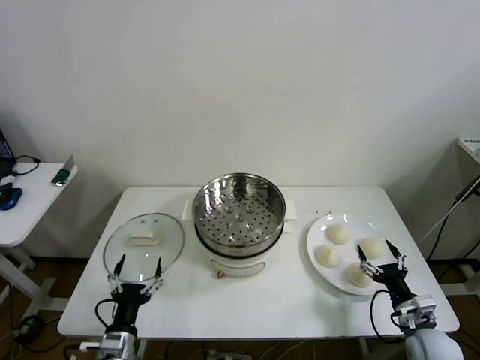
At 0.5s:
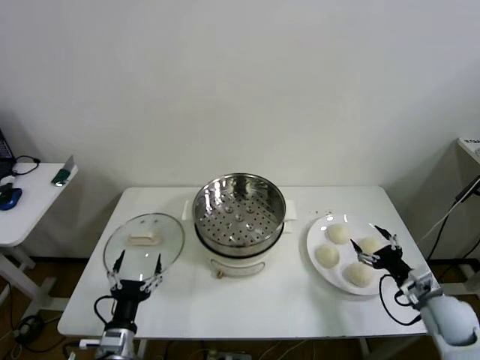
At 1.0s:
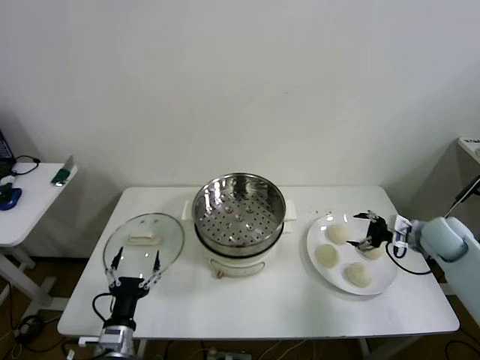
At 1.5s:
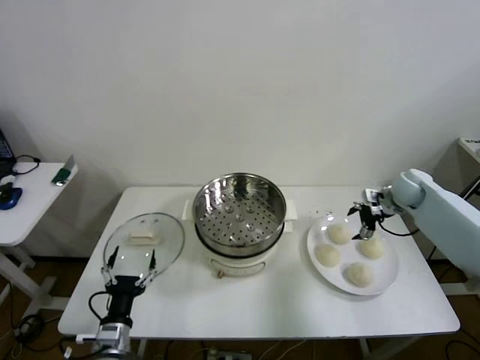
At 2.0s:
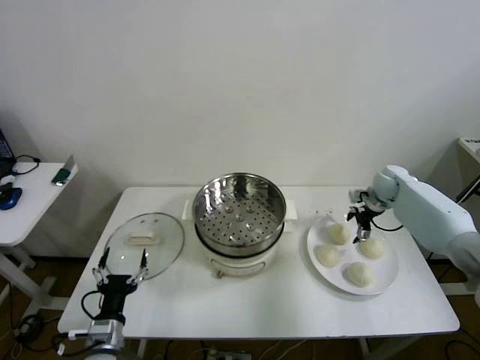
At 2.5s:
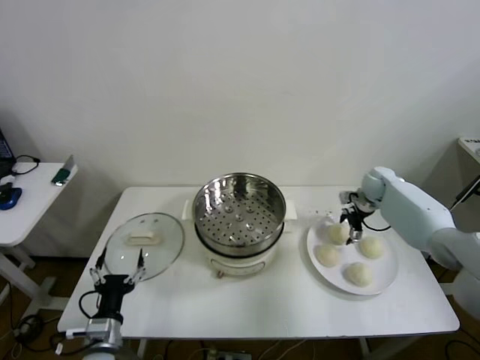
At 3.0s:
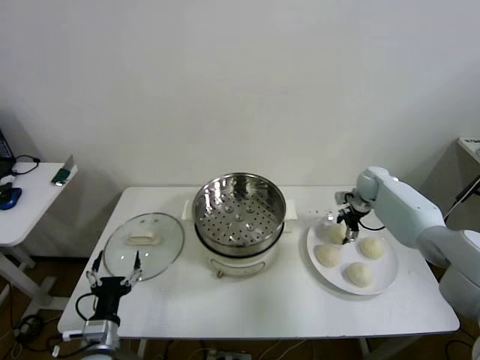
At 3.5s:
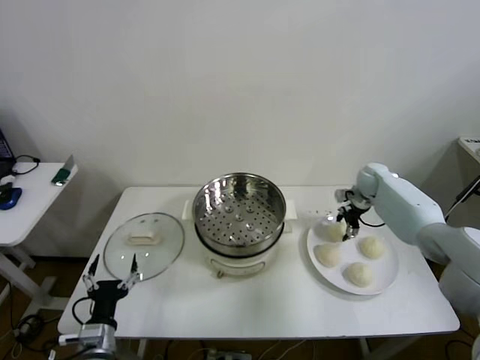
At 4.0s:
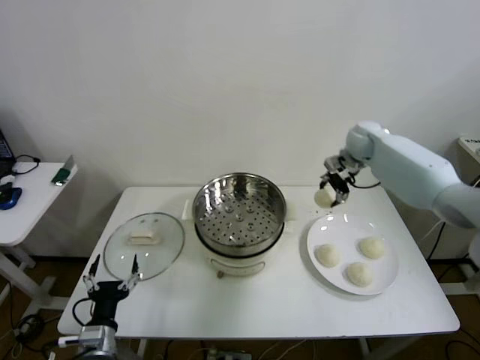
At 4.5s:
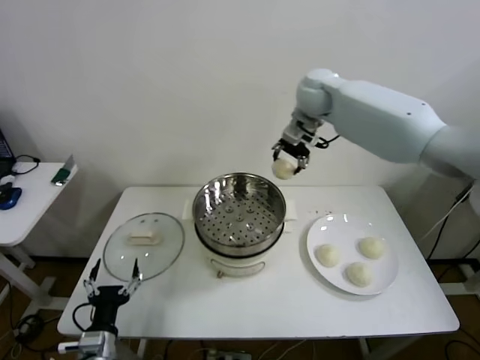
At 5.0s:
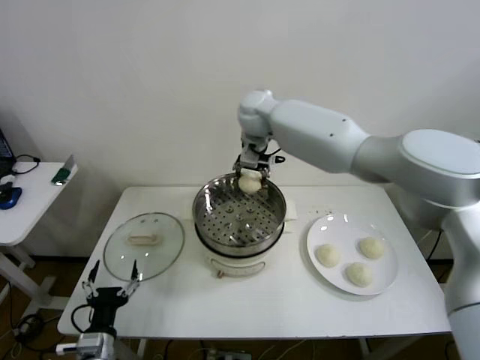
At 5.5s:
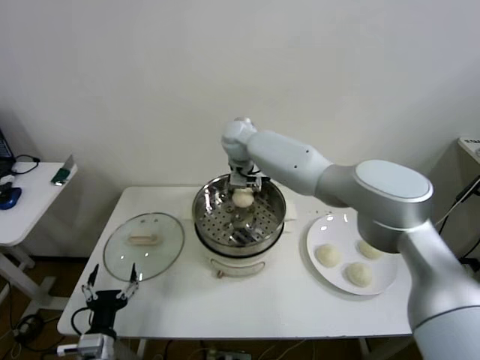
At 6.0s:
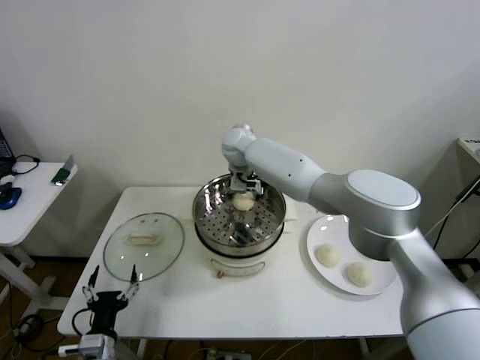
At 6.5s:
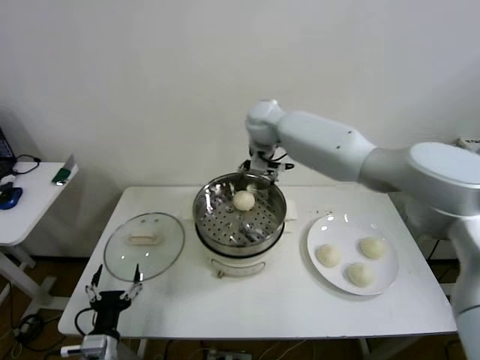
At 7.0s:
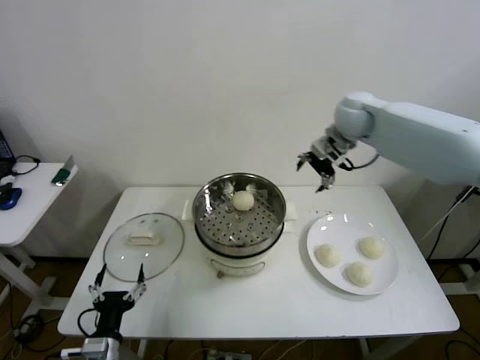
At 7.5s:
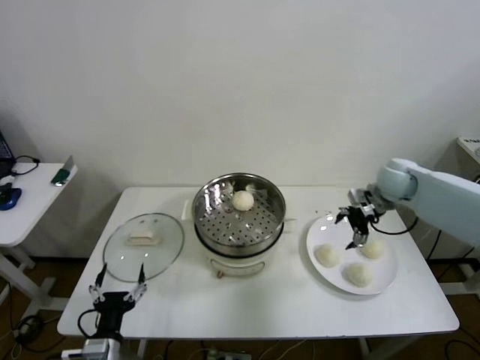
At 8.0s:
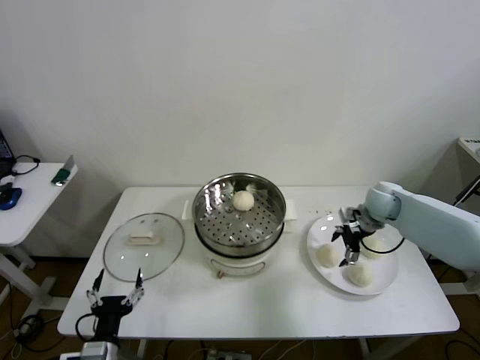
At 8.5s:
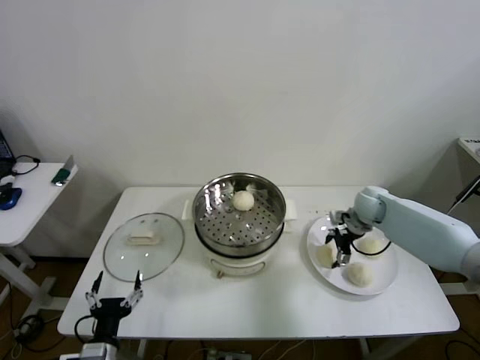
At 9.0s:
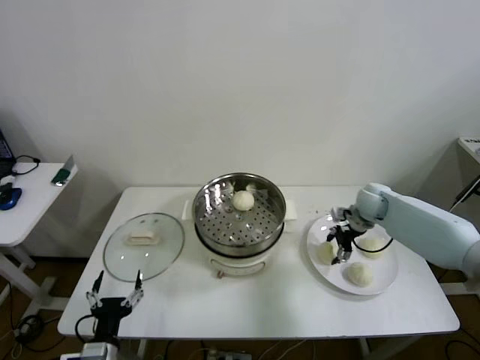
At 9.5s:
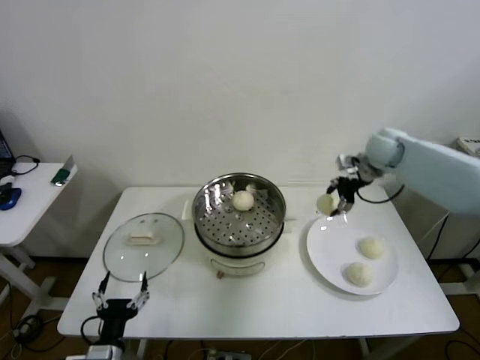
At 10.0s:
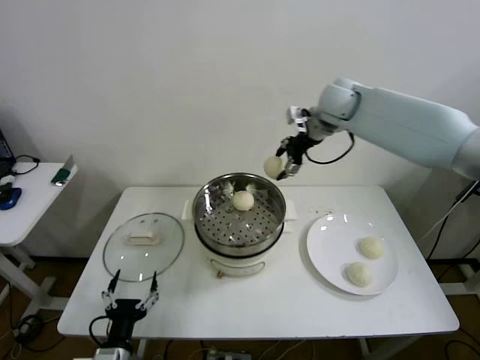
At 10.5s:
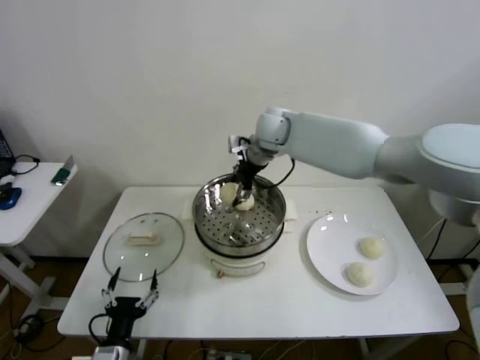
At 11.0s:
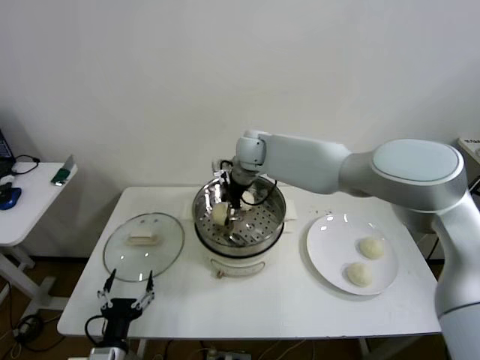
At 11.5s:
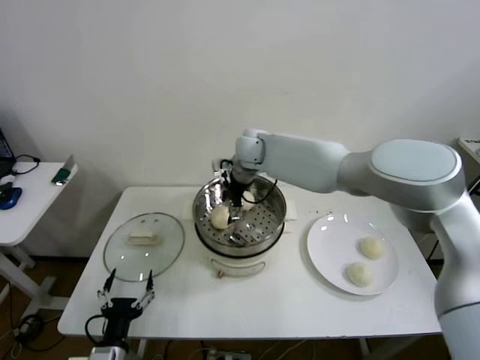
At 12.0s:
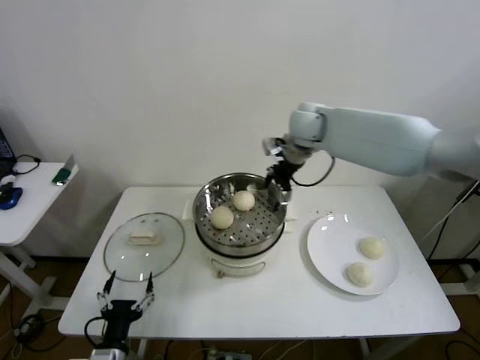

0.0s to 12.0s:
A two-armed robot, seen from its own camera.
Step, 0.0s to 3.0s: Grasp the baozi in the plate with right gripper.
Step, 3.5s to 6.0s: Place the baozi on the steamer with right gripper.
Step, 6.5s to 8.5s: Grasp the baozi in the plate with right gripper.
Step, 9.0s to 11.5s: Place the baozi on the steamer with right gripper.
2.0s to 4.0s: The right gripper shifts roughly 20 cm upward and to the left, and closes its fingers.
4.0s to 6.0s: The right gripper shifts approximately 30 cm to the left, and opens up.
6.0s to 8.0s: The right gripper goes some 35 cm to the right.
8.0s to 10.0s: The right gripper is displaced upward and to the left by approximately 30 cm, and closes up.
10.0s to 12.0s: The right gripper moves roughly 15 cm to the left and comes back, and opens up.

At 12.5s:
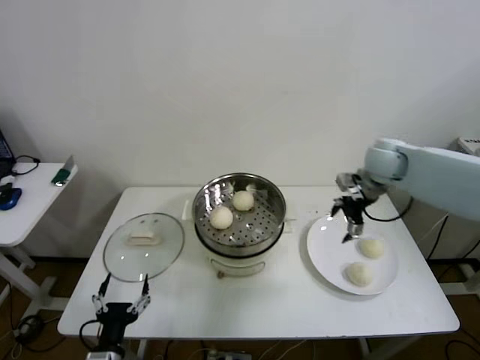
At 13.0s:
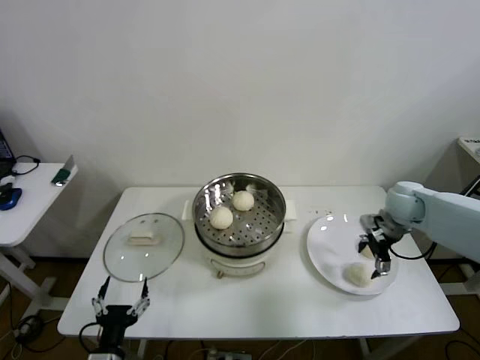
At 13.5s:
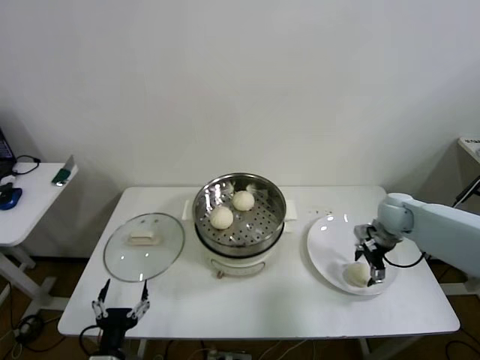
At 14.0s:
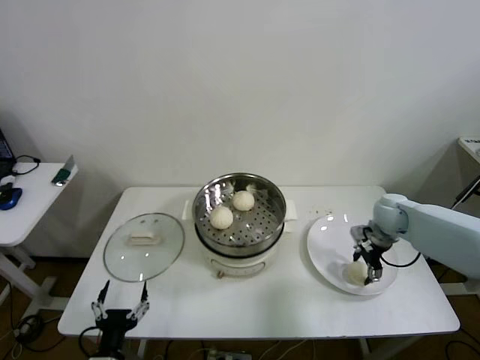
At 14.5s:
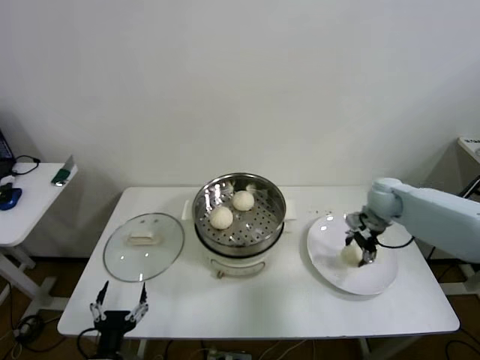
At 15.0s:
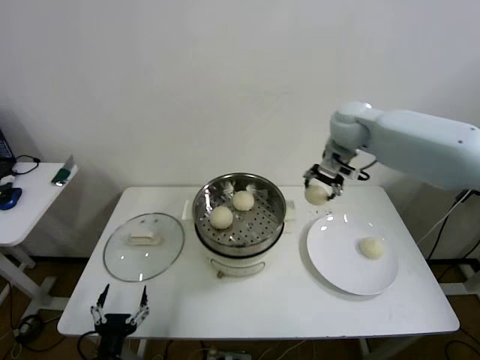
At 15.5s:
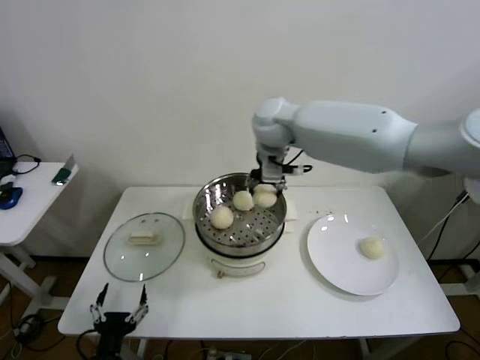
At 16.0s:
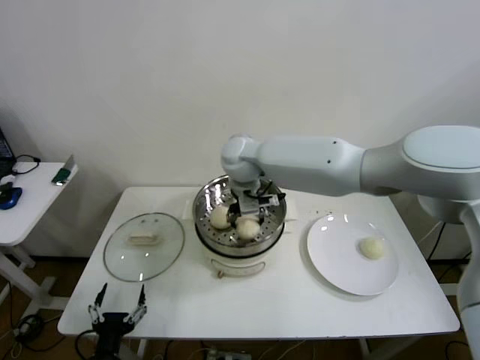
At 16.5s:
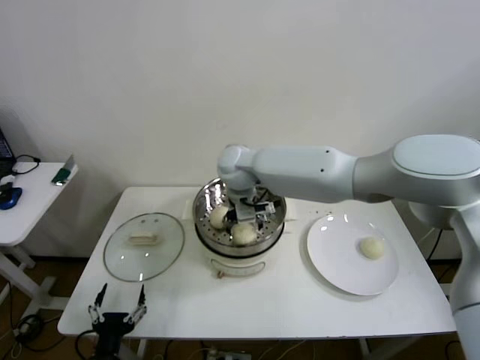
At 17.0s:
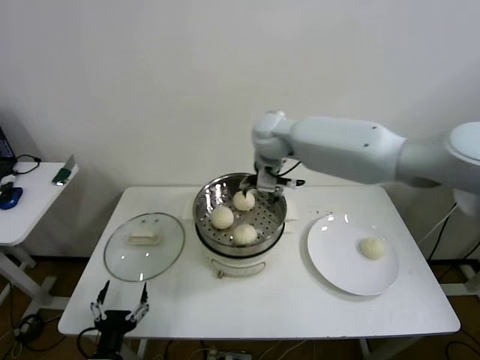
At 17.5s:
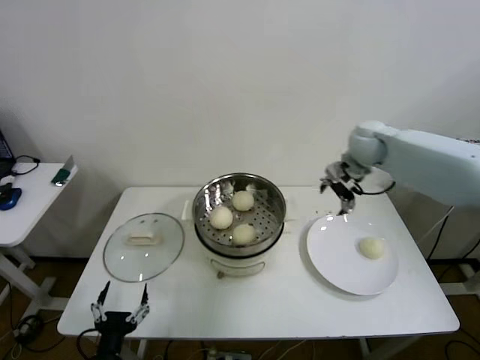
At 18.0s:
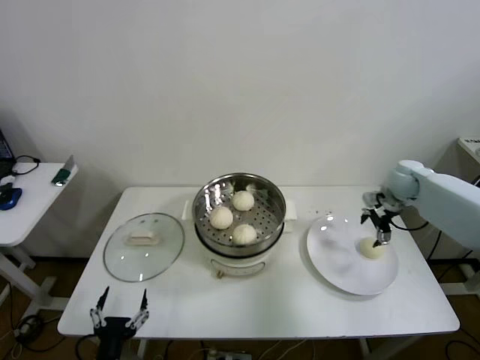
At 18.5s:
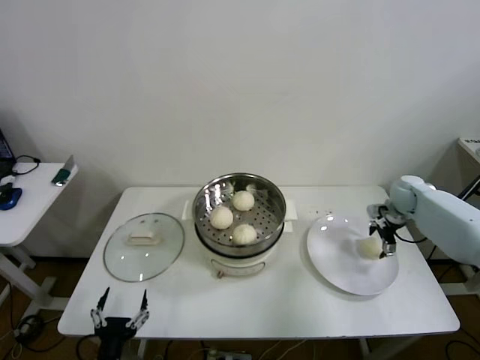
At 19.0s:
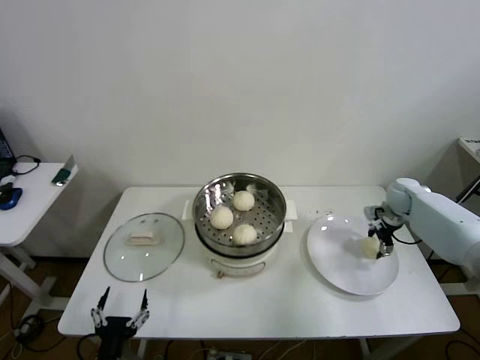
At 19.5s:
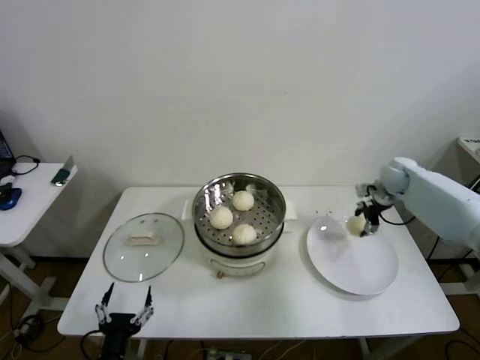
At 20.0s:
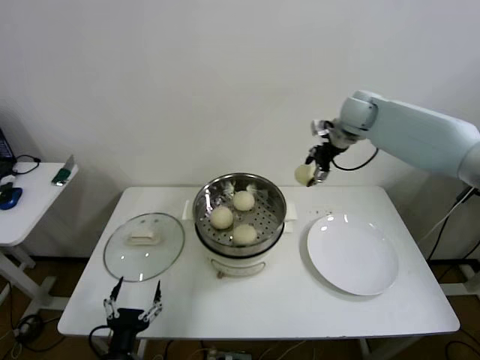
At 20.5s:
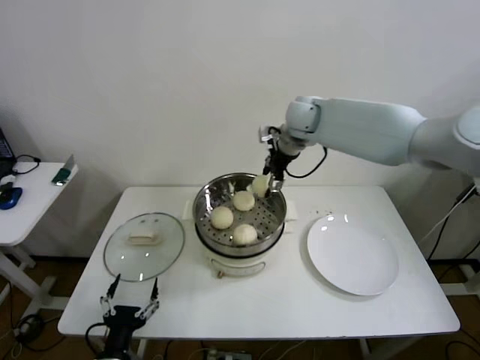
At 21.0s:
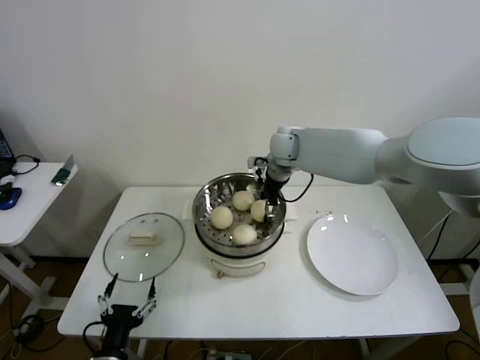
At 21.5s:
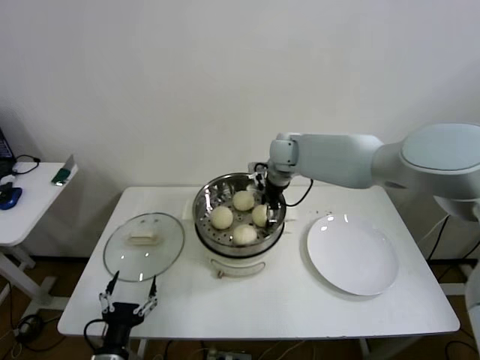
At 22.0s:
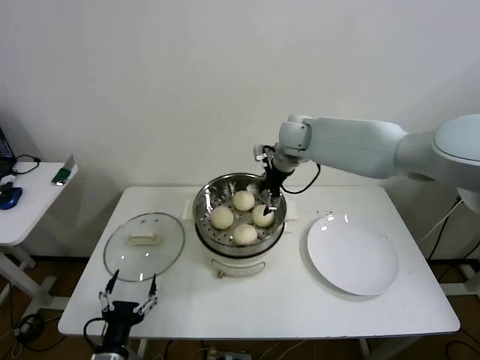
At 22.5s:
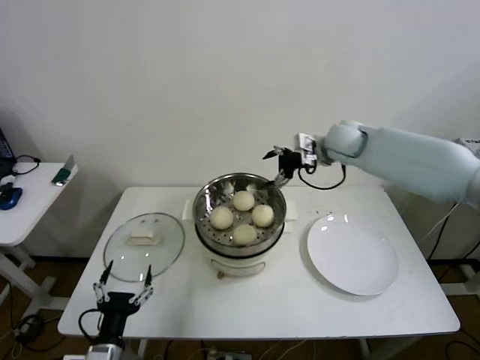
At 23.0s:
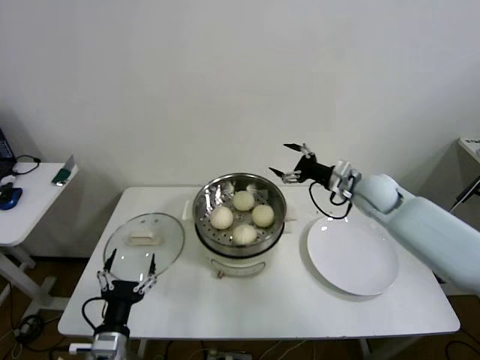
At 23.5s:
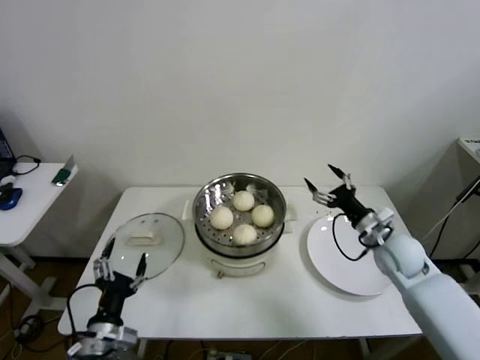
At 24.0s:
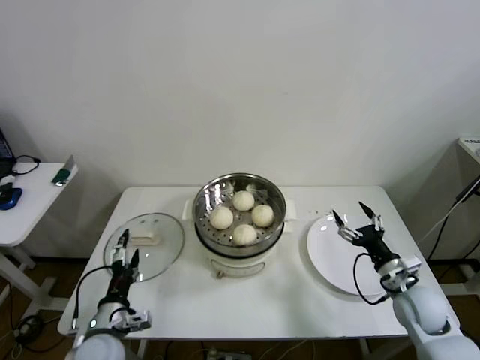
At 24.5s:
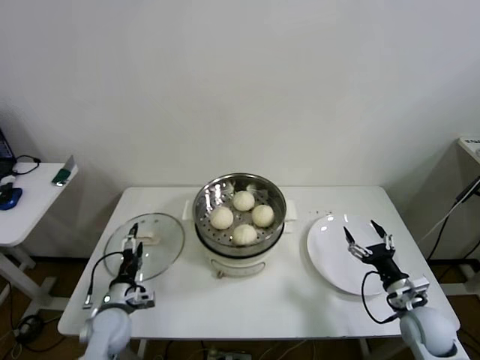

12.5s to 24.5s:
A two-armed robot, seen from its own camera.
Step, 12.5s to 14.0s: Grasp the baozi in the plate with right gripper.
Step, 14.5s to 16.5s: Place the baozi on the steamer with right gripper.
Step, 17.5s to 19.0s: Grasp the baozi in the plate with right gripper.
Step, 19.5s to 21.5s: Place the baozi on the steamer with right gripper.
12.5s to 14.5s: The right gripper moves downward, some 10 cm, and closes.
14.5s to 16.5s: The right gripper goes roughly 35 cm to the left, and opens up.
16.5s to 18.5s: The right gripper heads to the right, covering about 50 cm.
18.5s to 20.5s: The right gripper moves to the left and upward, approximately 35 cm, and closes up.
20.5s to 22.5s: The right gripper is displaced to the right by some 10 cm, and opens.
22.5s to 24.5s: The left gripper shifts about 15 cm forward and downward; the right gripper is displaced backward, downward and to the right by about 40 cm.

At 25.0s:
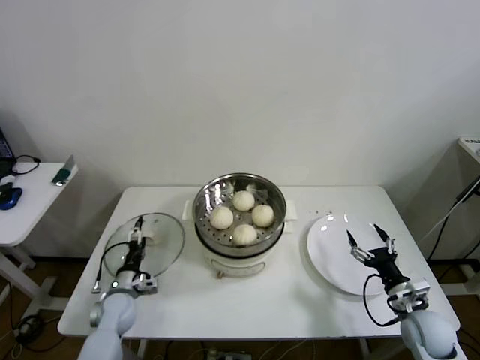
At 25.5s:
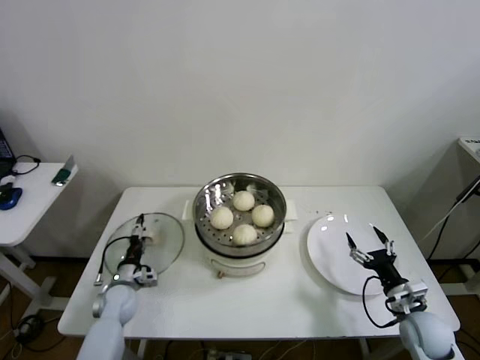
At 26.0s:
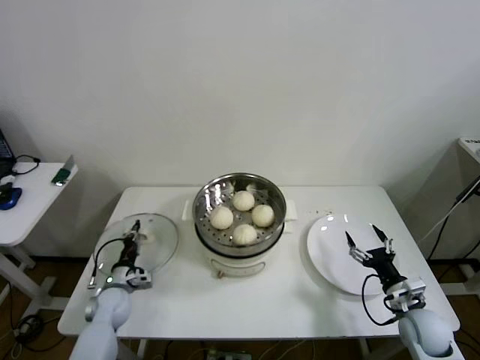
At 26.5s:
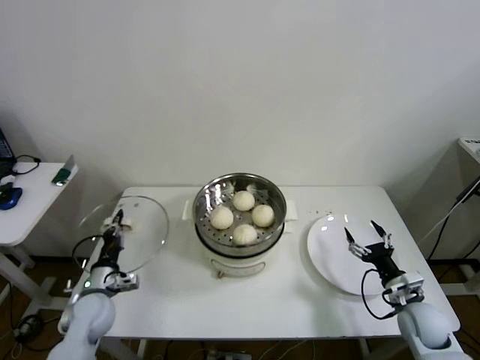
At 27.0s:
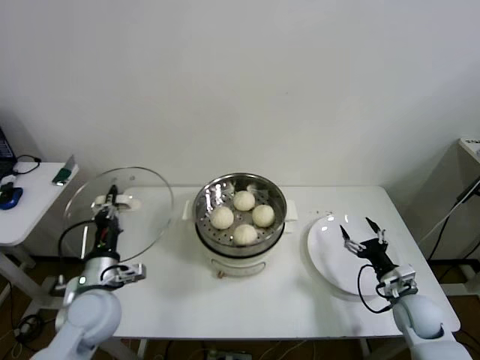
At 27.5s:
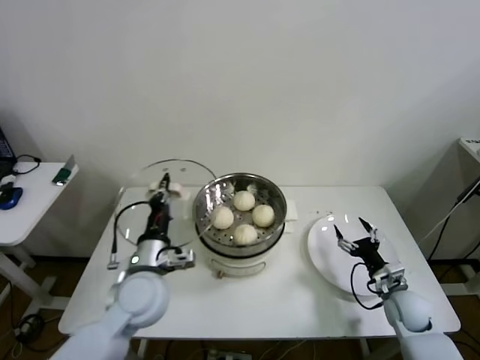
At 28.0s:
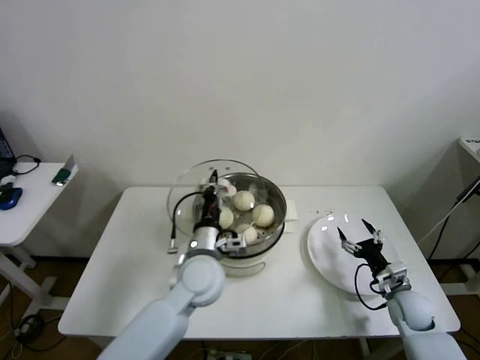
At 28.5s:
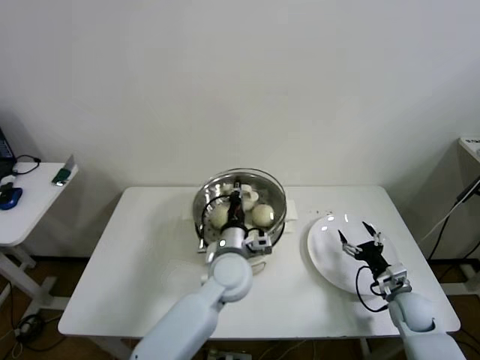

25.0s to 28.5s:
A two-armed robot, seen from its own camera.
25.0s to 27.0s: The left gripper goes some 15 cm upward, and closes its fingers.
27.0s to 28.5s: The left gripper goes approximately 25 cm to the right.
